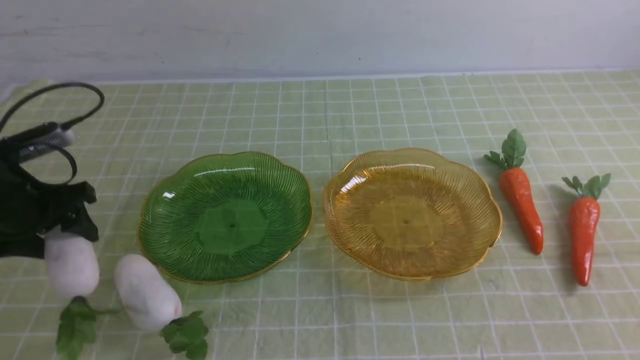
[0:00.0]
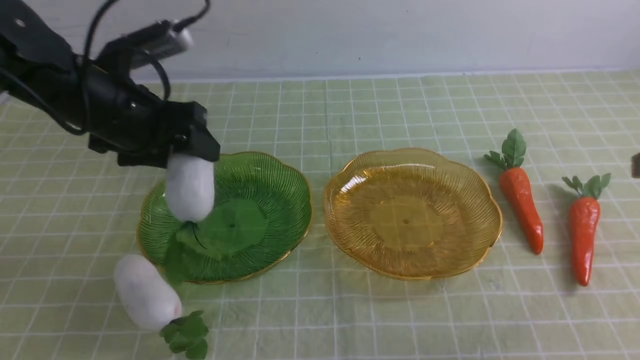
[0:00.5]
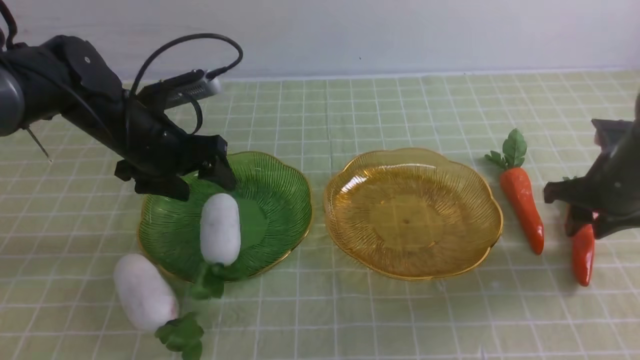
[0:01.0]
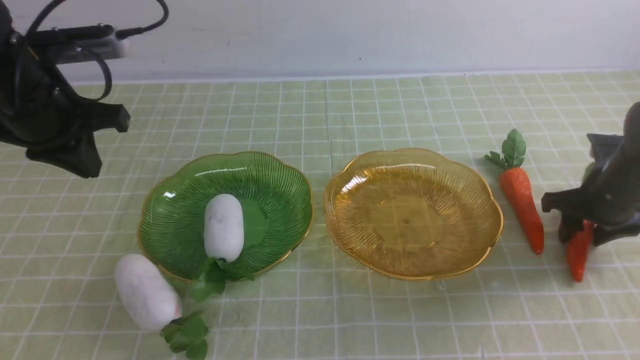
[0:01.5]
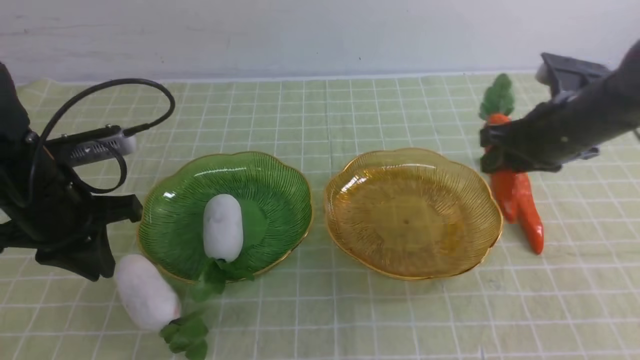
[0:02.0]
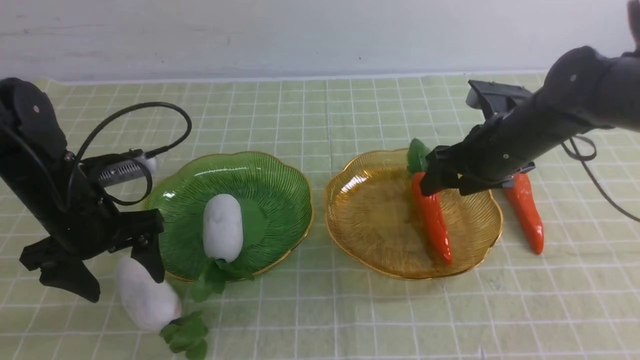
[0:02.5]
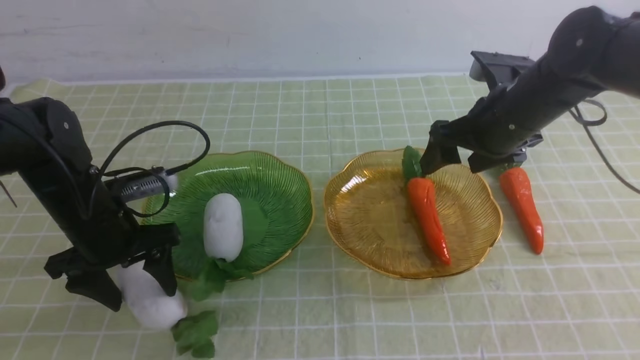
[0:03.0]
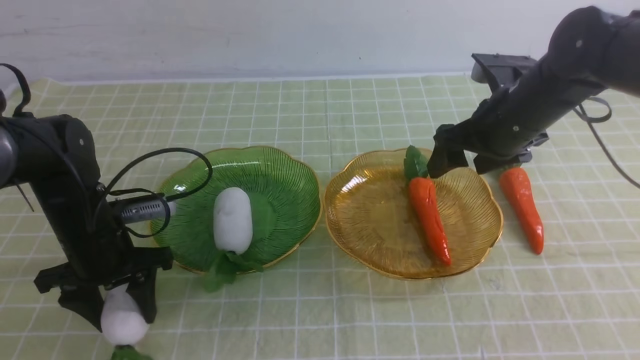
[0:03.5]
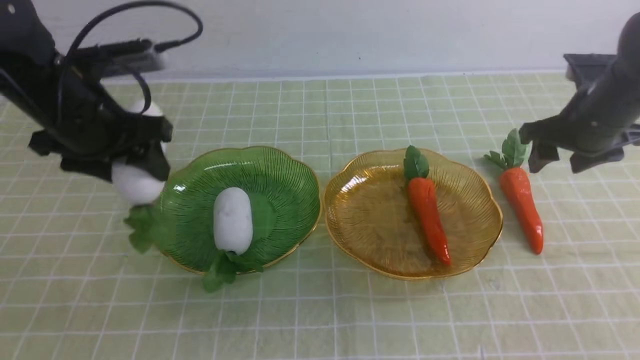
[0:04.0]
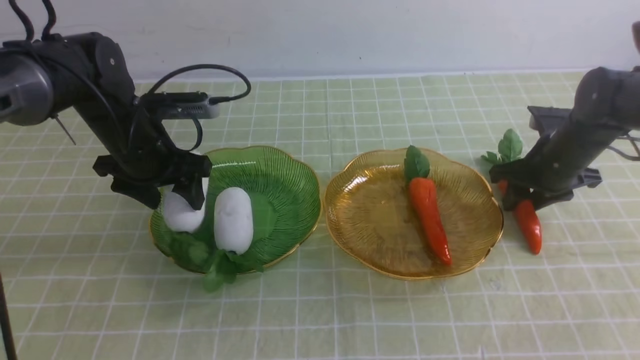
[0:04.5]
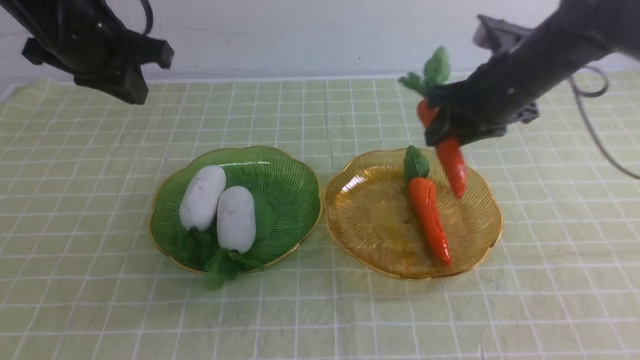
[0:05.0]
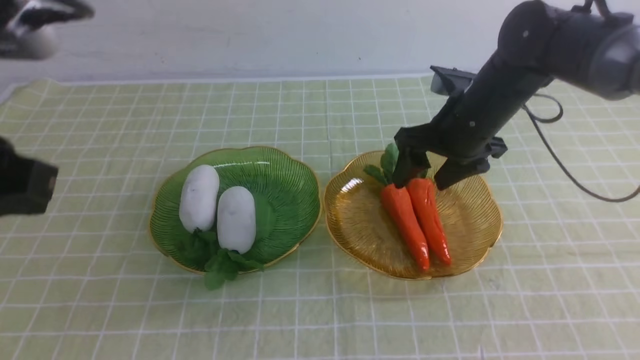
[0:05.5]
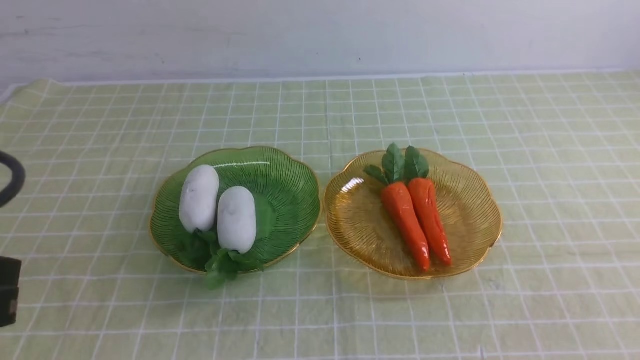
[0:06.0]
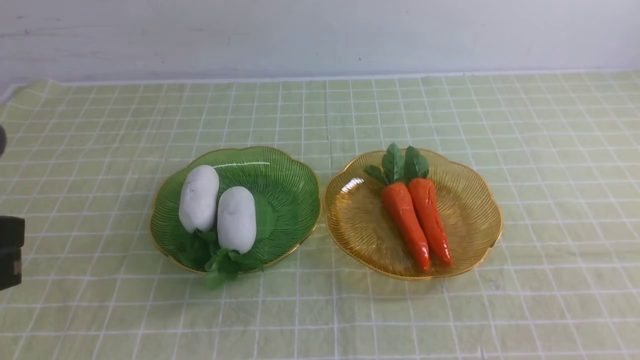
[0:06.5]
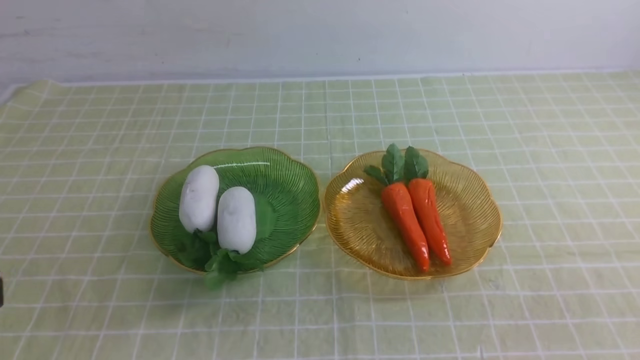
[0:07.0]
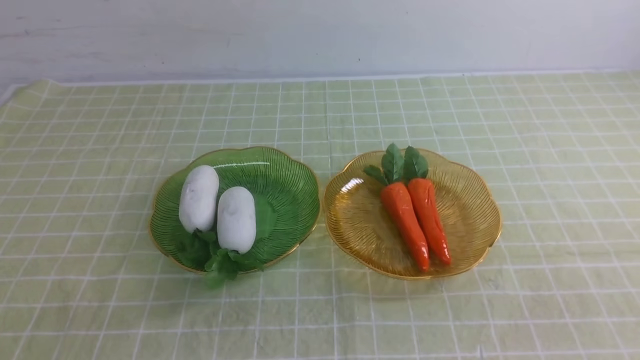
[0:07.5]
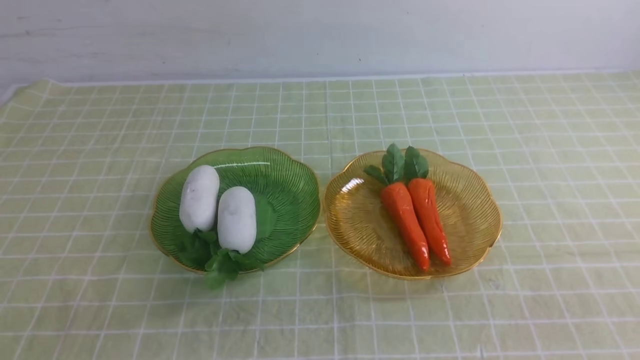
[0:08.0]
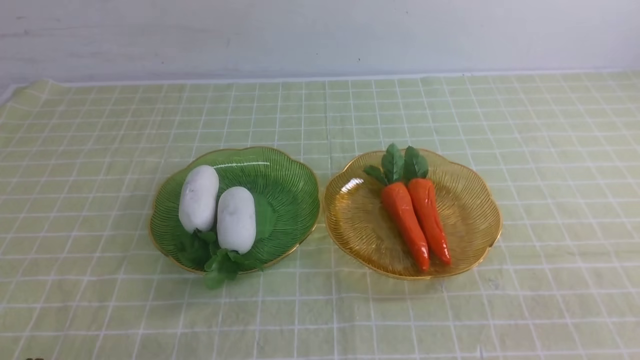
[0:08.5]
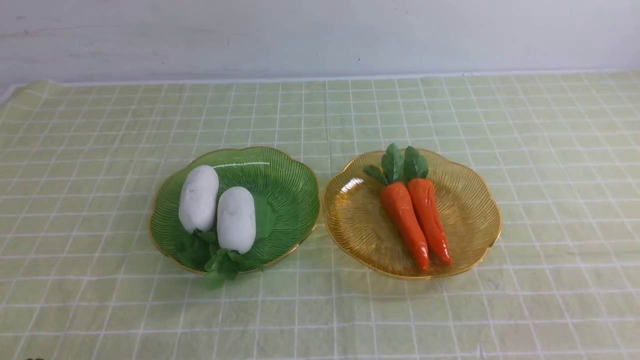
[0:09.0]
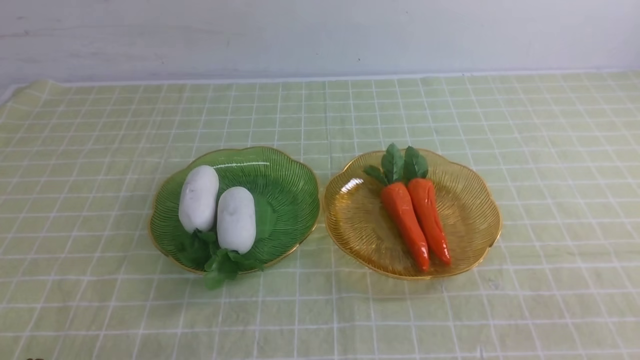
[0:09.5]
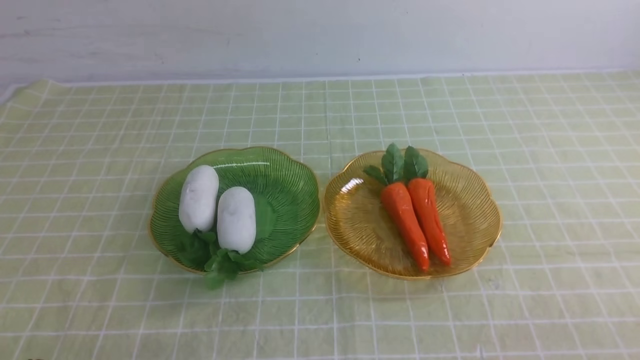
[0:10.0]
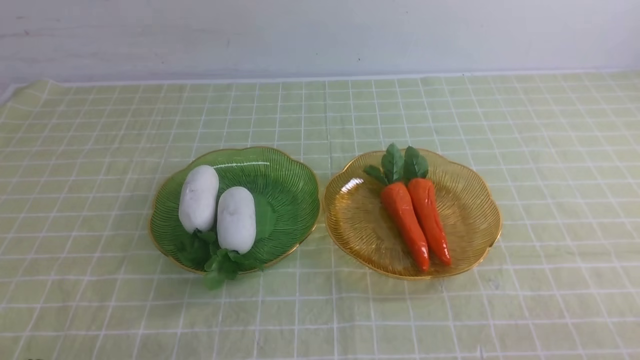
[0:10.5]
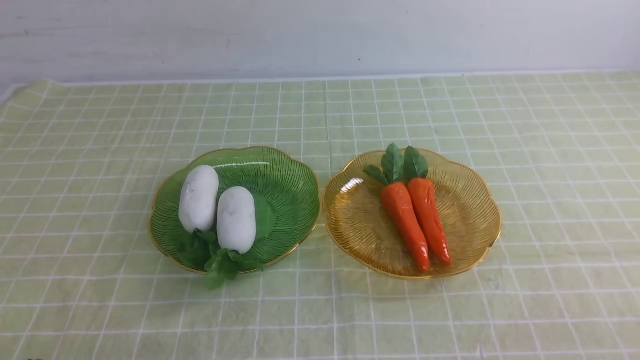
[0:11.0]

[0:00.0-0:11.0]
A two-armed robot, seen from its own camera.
Step, 0:01.5 to 0:02.5: use the right arm to grab a carrot and put it into the right plate.
Step, 0:03.0 to 0:04.5: use the left arm to grab a radish and put it into the left plate.
Step, 0:05.0 to 0:06.0: use the right arm to grab a carrot and put it into the right plate.
0:00.0 to 0:02.0: The right gripper shifts some 30 cm forward and downward, and opens its fingers. Meanwhile the left gripper shifts some 5 cm to the right, and closes up.
0:02.0 to 0:03.5: The right gripper opens its fingers. Meanwhile the left gripper heads downward, covering approximately 10 cm, and opens its fingers.
0:03.5 to 0:05.5: The left gripper goes approximately 25 cm upward and backward, and closes up.
0:05.5 to 0:07.5: The right gripper heads backward, covering some 40 cm, and closes its fingers. Meanwhile the left gripper is displaced backward and downward by about 20 cm.
